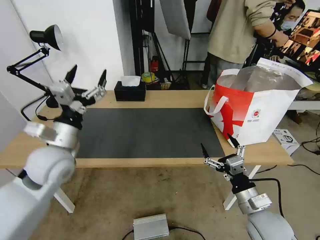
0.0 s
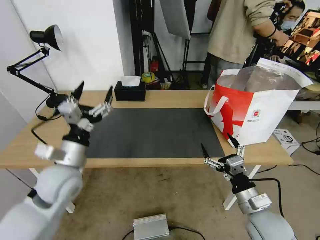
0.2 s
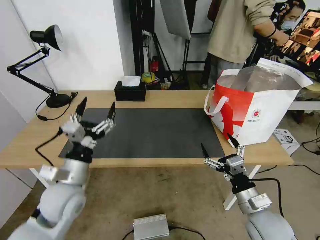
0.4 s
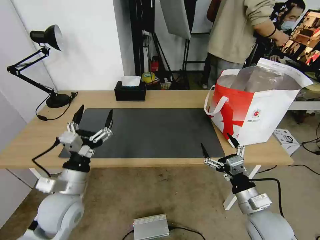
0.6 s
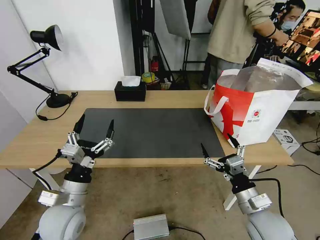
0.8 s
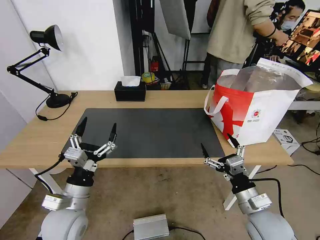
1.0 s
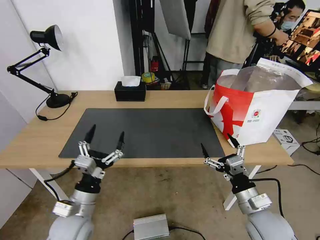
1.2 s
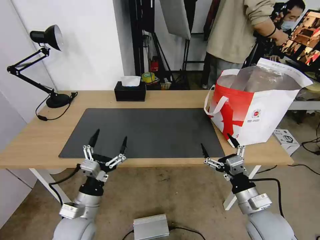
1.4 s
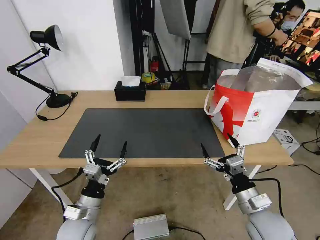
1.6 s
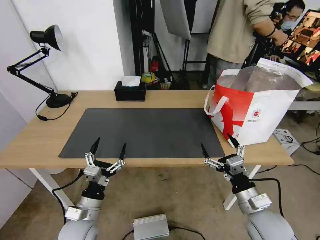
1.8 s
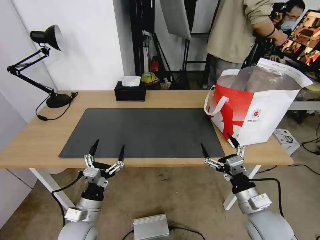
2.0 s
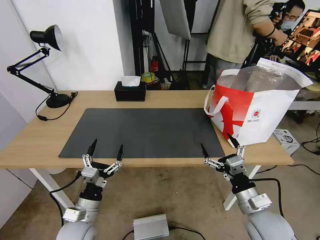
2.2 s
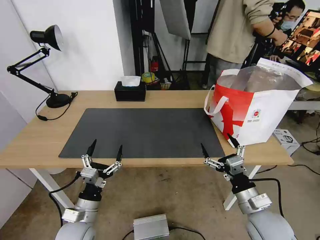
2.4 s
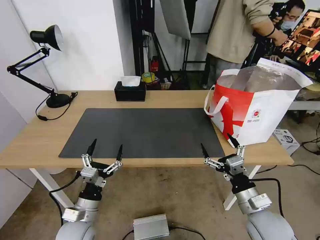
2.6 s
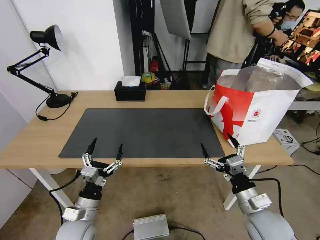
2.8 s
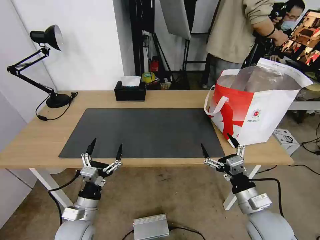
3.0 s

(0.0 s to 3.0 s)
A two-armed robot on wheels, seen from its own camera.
Task of the whole recording: Pick up the trash from the table and place it into the takeout bag.
0.0 s - 1.6 s: The left gripper moves downward and backward, roughly 20 cm.
1.6 s - 3.0 s: The grippers make only small movements.

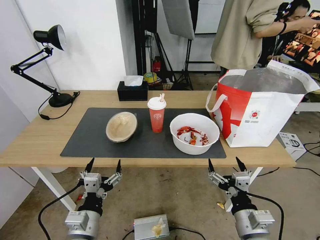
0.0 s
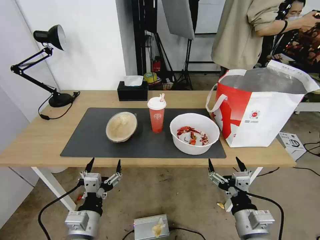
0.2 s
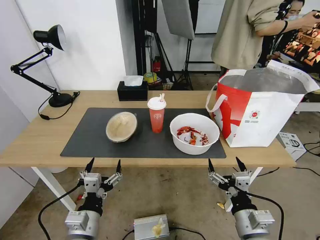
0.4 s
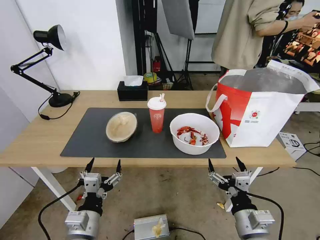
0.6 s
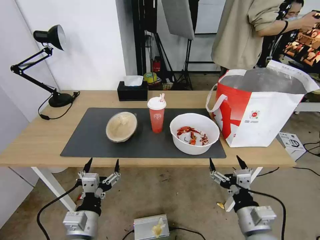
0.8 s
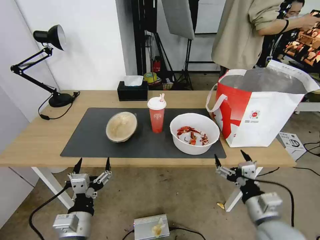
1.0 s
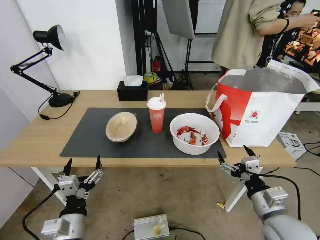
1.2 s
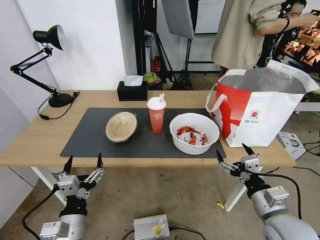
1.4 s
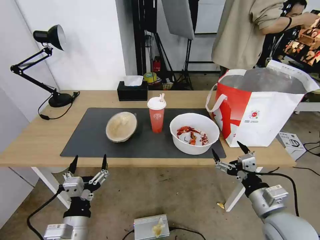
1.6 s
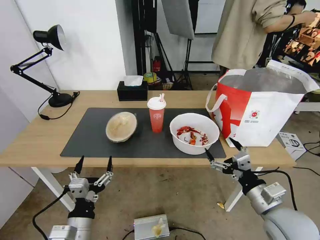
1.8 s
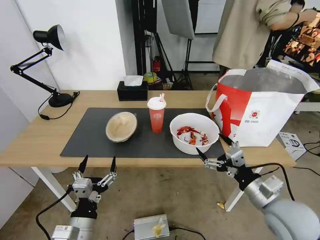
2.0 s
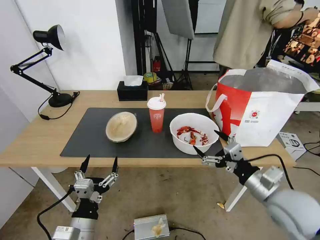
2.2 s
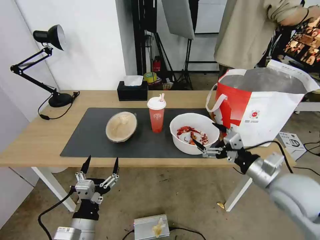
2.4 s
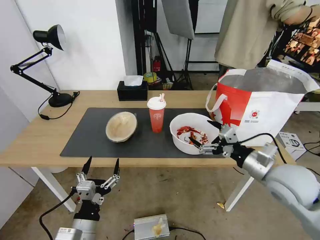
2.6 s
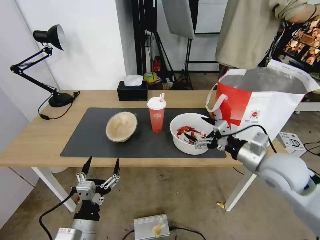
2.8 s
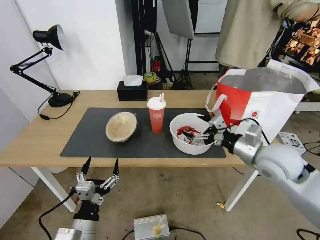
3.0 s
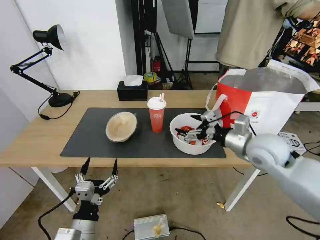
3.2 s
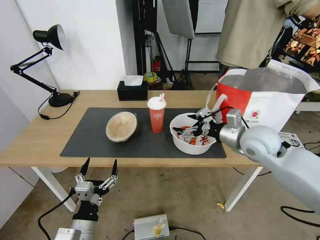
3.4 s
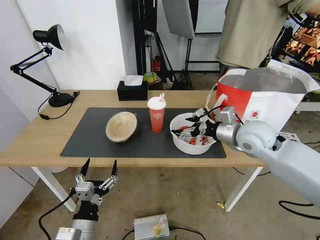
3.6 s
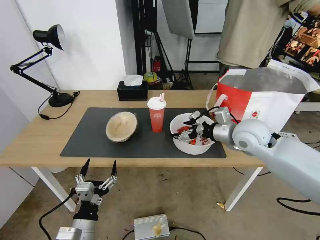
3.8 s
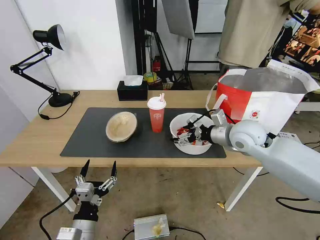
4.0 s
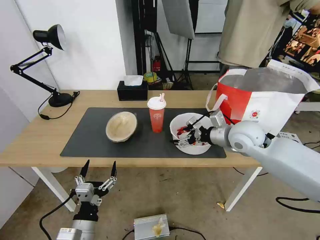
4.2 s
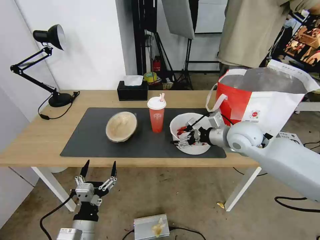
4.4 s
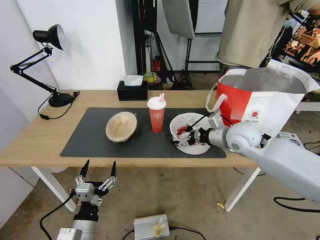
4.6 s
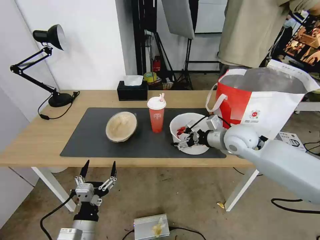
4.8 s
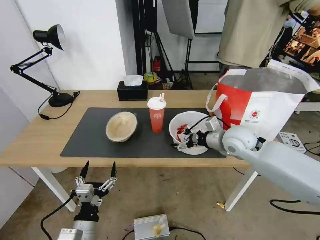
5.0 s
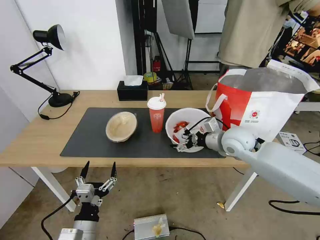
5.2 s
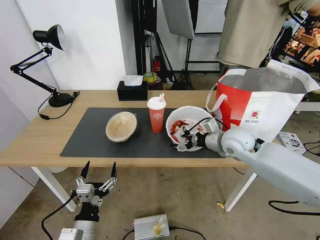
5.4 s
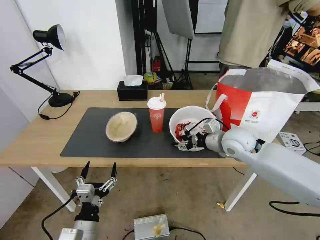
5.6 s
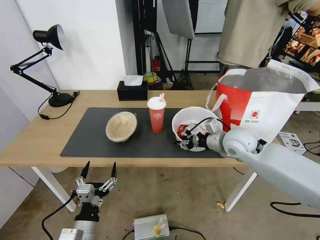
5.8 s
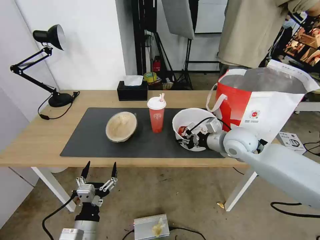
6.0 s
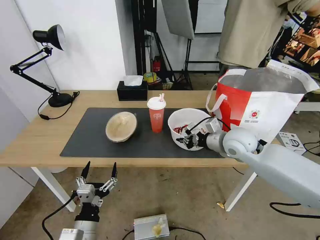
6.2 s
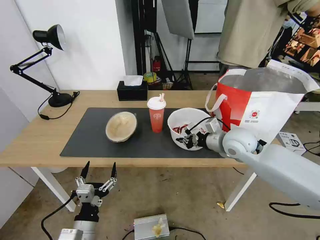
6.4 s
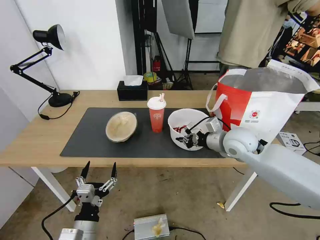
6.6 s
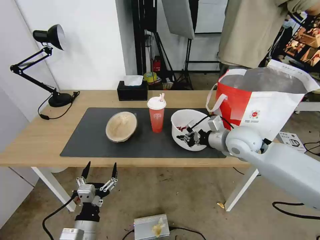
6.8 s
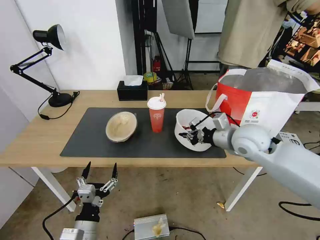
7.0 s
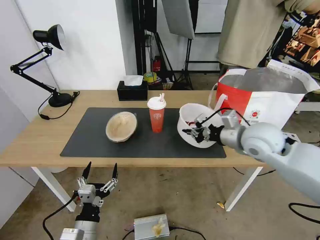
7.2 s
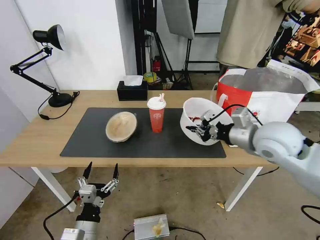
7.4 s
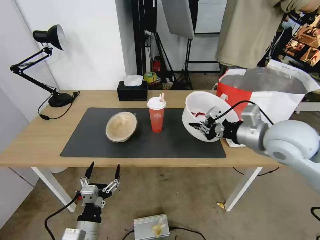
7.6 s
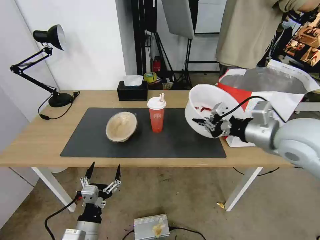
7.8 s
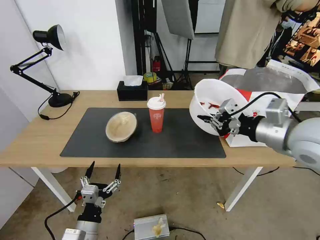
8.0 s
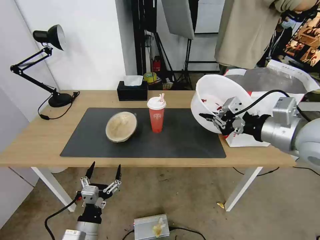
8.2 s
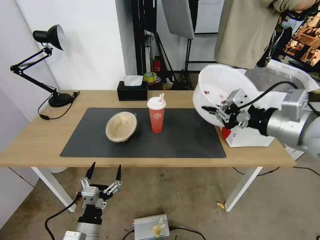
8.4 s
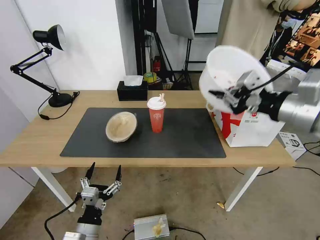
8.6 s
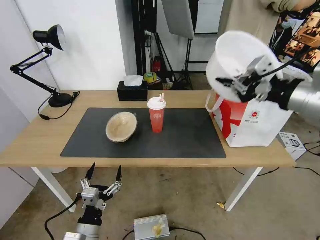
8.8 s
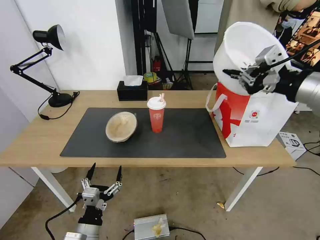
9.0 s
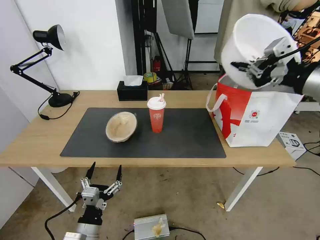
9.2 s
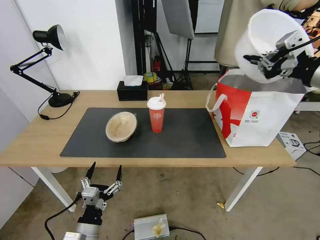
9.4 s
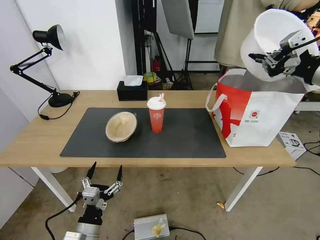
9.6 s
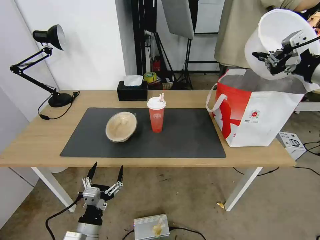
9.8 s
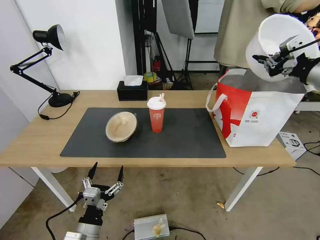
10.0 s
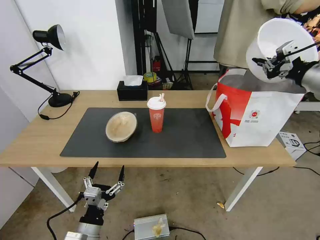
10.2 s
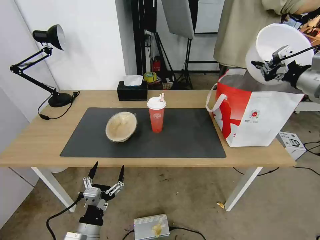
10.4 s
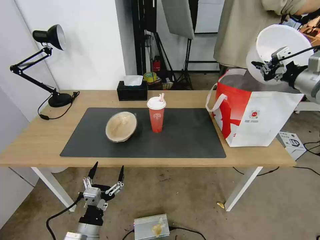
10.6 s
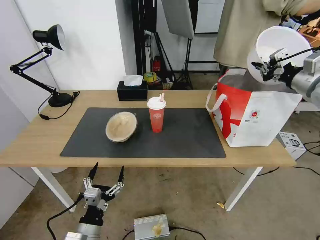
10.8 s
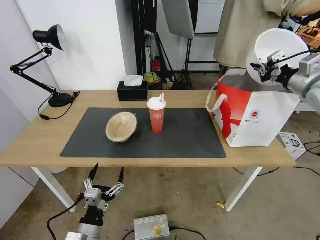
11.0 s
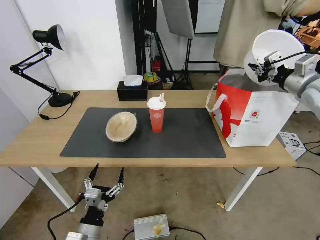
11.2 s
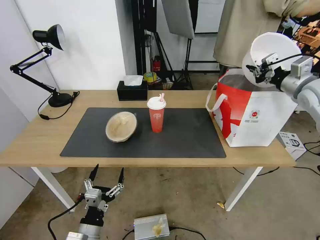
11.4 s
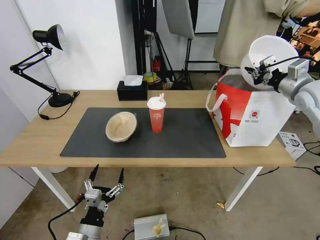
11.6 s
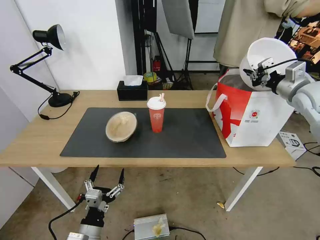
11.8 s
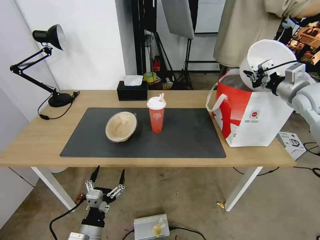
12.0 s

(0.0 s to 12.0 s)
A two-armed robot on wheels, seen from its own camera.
Task of the whole recording: Pick up the trash from the table and place it into the takeout bag.
1.6 s - 3.0 s: The right gripper shifts about 20 cm forward and upward.
3.0 s - 4.4 s: The right gripper is displaced forward by some 10 cm.
4.4 s - 6.0 s: The right gripper closes its fingers.
6.0 s - 7.6 s: The right gripper is displaced upward and backward by about 15 cm.
7.6 s - 9.0 s: The right gripper shifts roughly 15 cm upward and to the right.
9.0 s - 10.4 s: The right gripper heads forward and to the right, covering approximately 15 cm.
10.4 s - 12.0 s: The right gripper goes some 10 cm downward and forward.

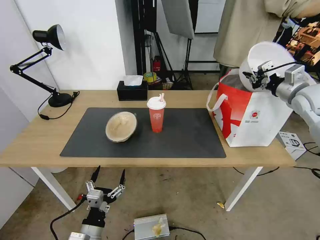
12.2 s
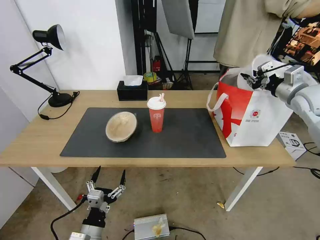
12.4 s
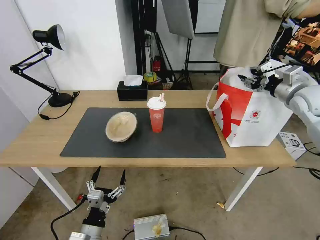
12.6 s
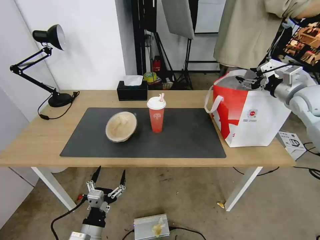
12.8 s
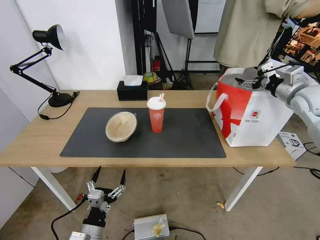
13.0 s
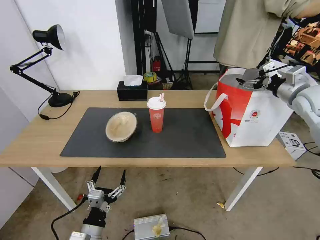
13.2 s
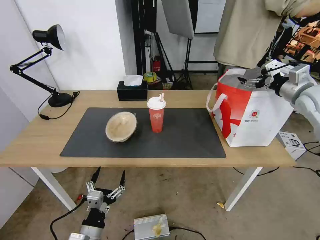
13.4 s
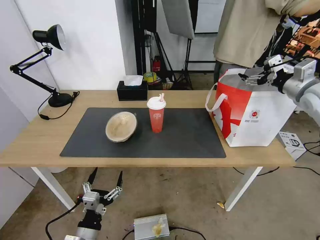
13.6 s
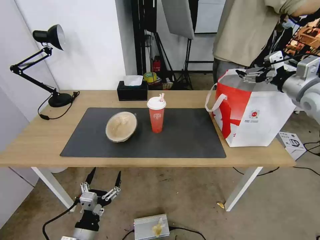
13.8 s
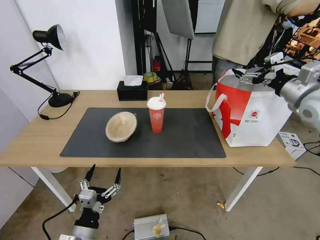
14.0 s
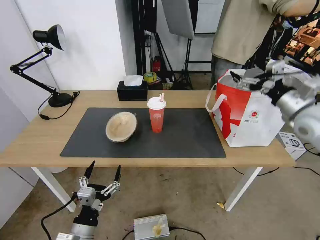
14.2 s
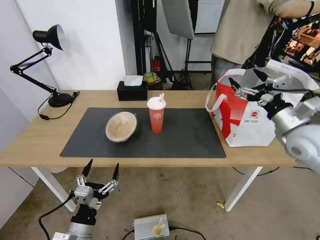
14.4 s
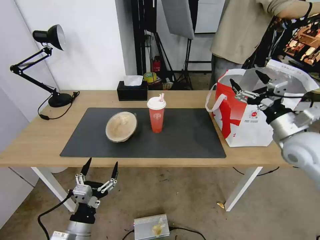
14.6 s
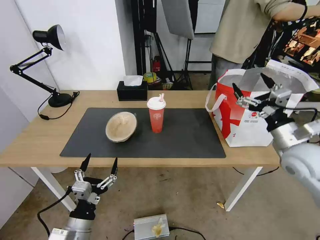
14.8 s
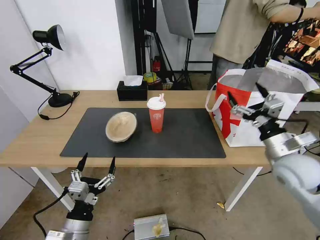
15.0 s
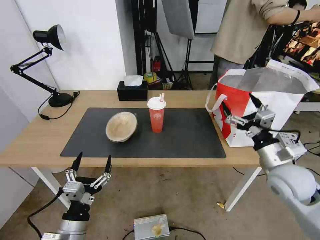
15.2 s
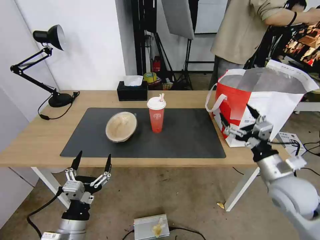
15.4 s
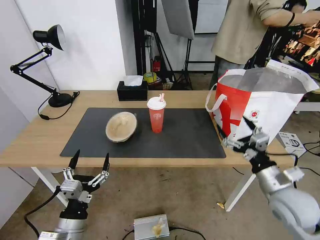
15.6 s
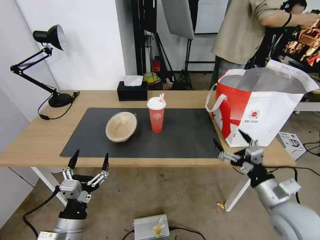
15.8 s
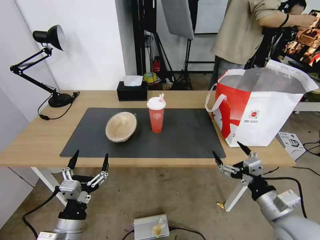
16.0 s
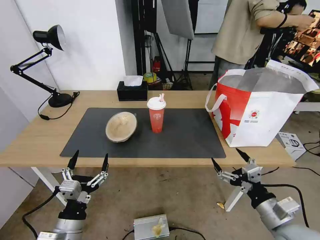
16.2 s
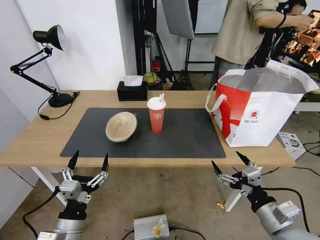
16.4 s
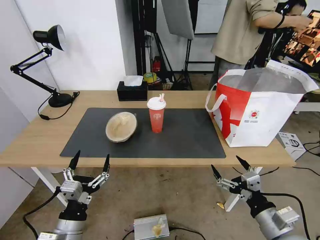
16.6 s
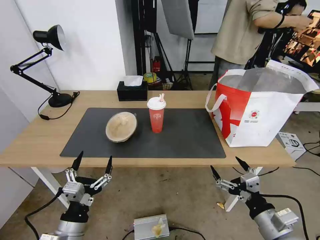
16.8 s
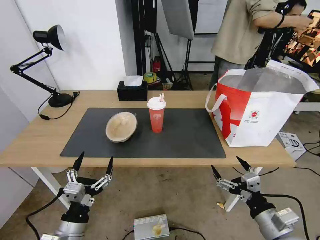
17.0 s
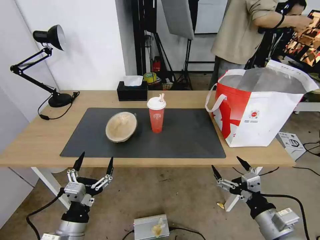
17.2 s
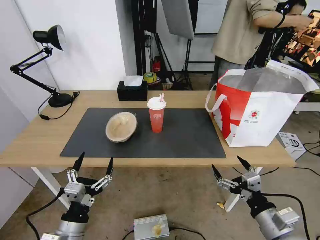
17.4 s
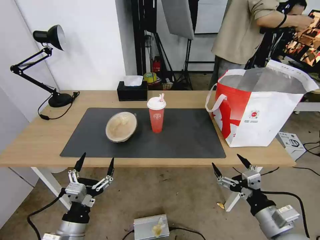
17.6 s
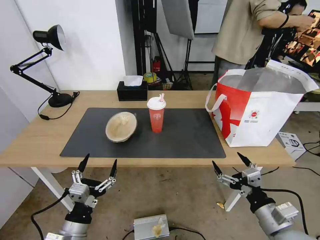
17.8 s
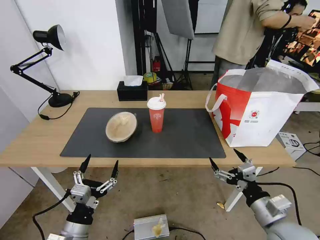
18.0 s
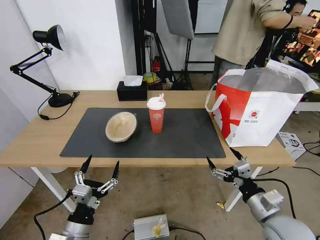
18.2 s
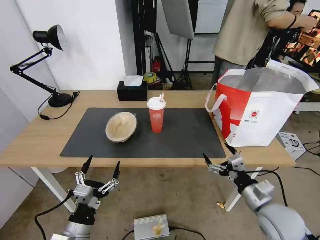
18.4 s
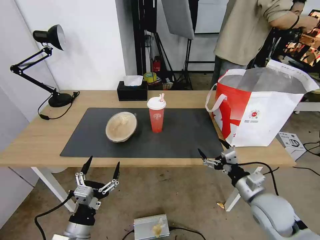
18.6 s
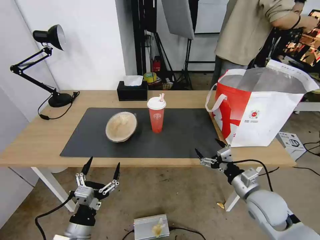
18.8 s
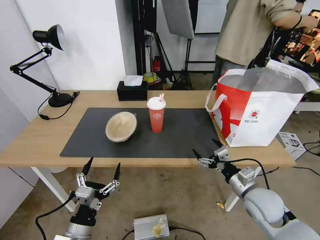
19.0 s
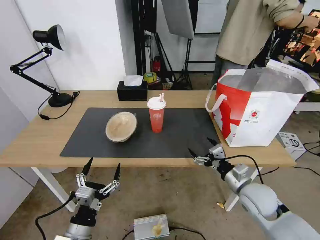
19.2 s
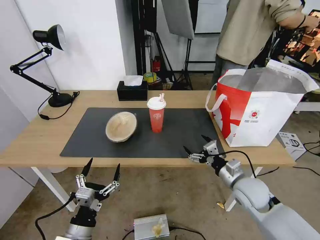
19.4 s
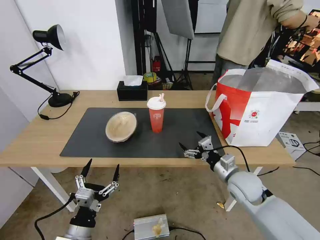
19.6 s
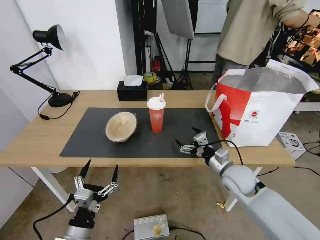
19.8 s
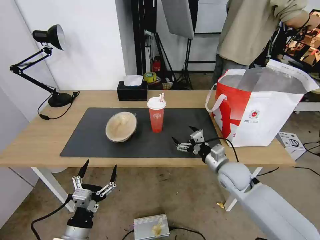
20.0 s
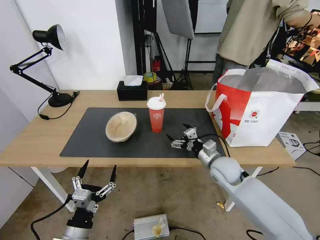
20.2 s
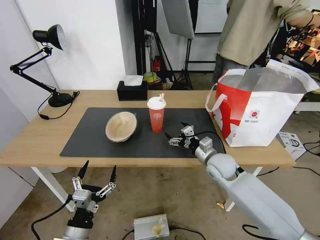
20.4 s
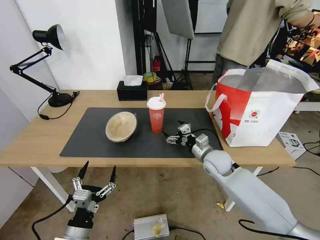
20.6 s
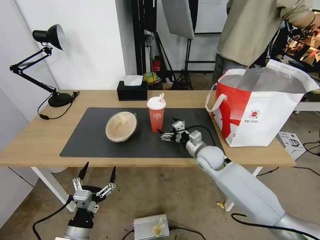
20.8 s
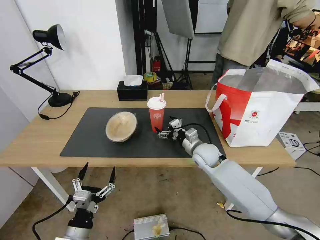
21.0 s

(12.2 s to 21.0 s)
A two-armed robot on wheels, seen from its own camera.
Task of the whole recording: Pick up the trash from the table and place it into the takeout bag.
12.2 s - 13.6 s: The right gripper opens.
13.6 s - 15.2 s: The left gripper is displaced upward by some 5 cm; the right gripper heads backward, downward and to the left, covering about 25 cm.
15.2 s - 16.6 s: The right gripper is displaced backward and downward by roughly 15 cm.
16.6 s - 18.0 s: The grippers stay close to where they were, moving slightly.
18.0 s - 19.6 s: The right gripper is displaced forward by some 15 cm.
19.6 s - 21.0 s: The right gripper is displaced forward and to the left by approximately 15 cm.
